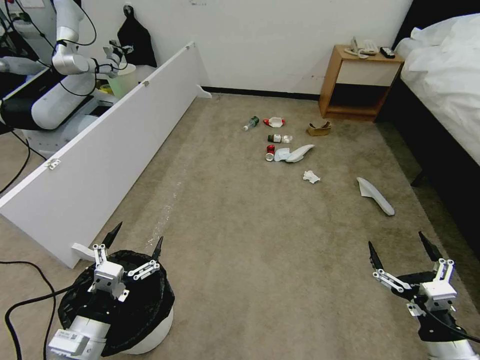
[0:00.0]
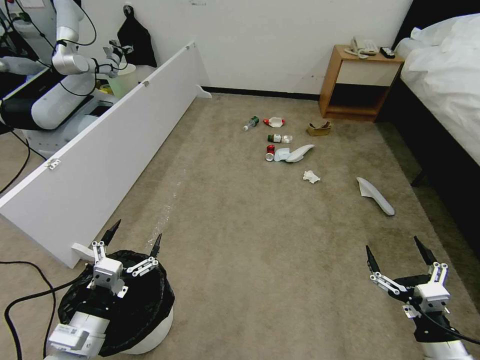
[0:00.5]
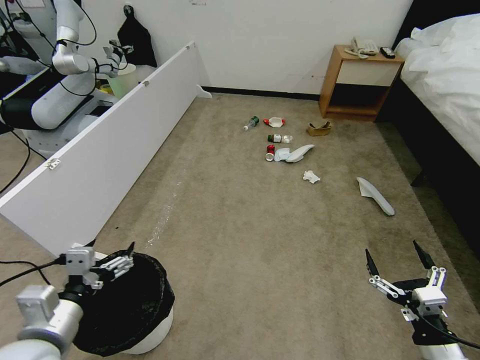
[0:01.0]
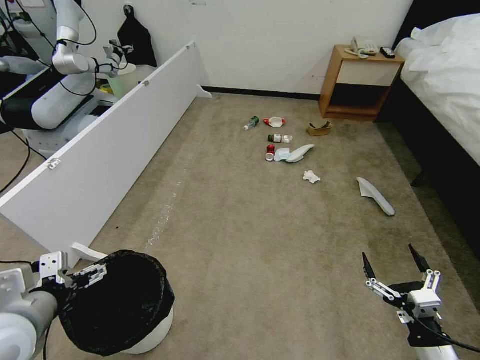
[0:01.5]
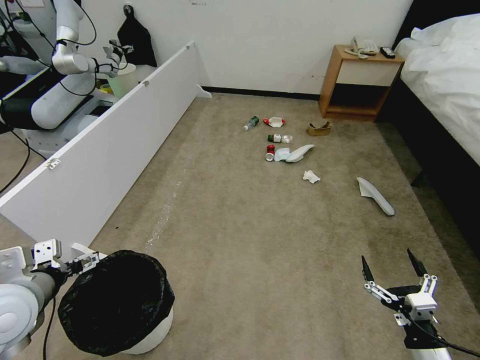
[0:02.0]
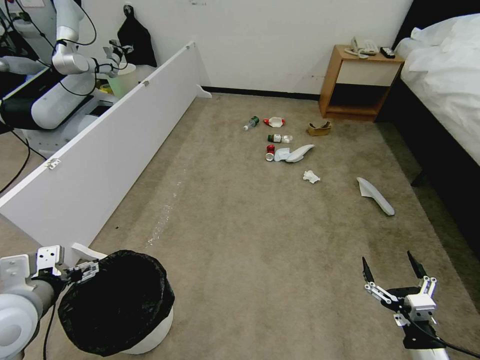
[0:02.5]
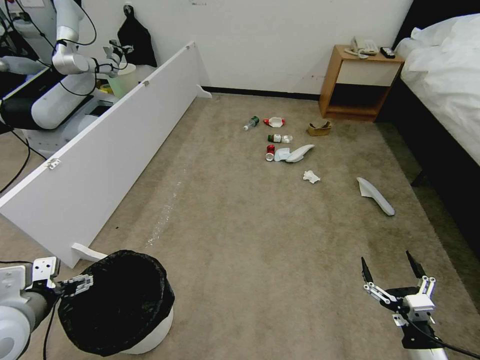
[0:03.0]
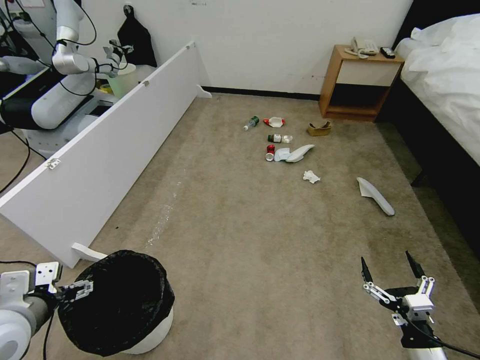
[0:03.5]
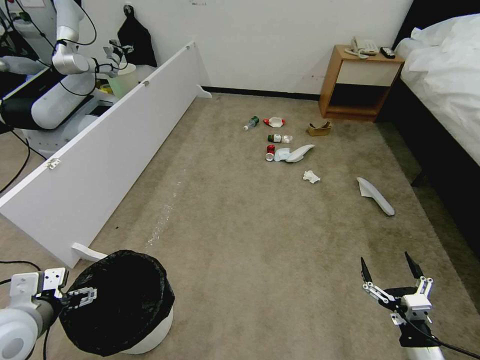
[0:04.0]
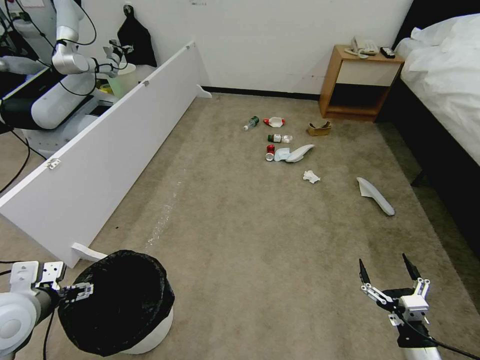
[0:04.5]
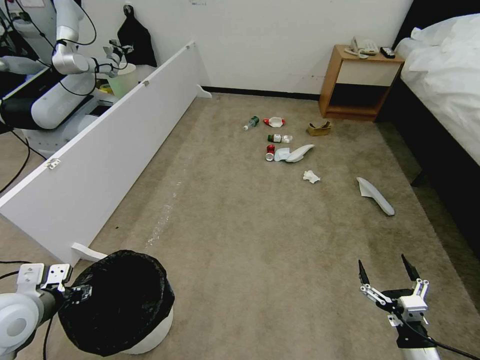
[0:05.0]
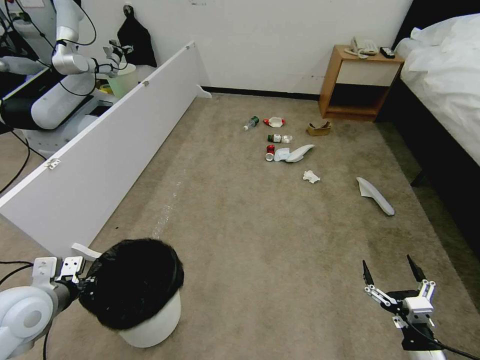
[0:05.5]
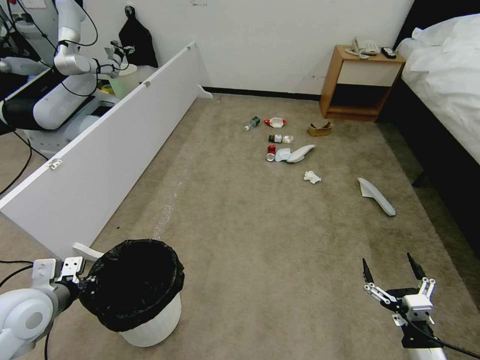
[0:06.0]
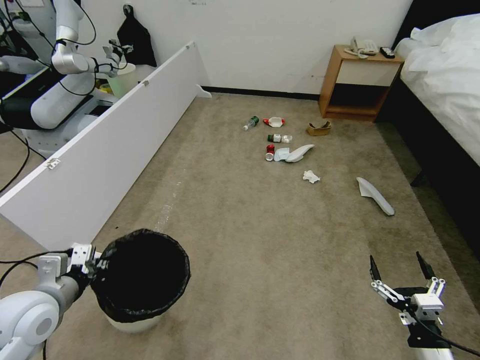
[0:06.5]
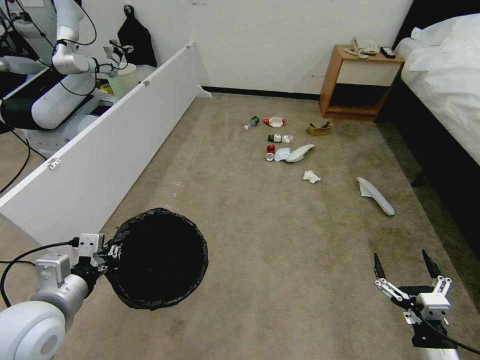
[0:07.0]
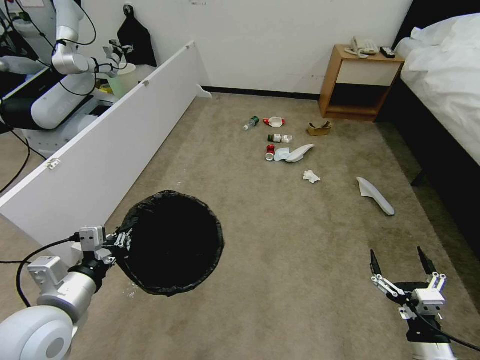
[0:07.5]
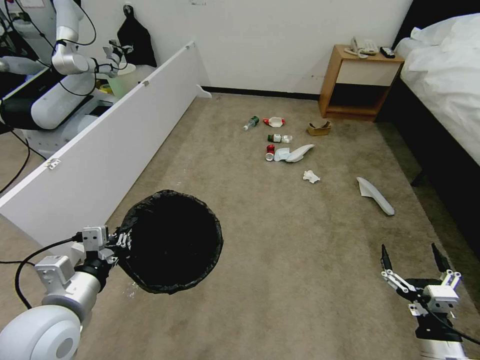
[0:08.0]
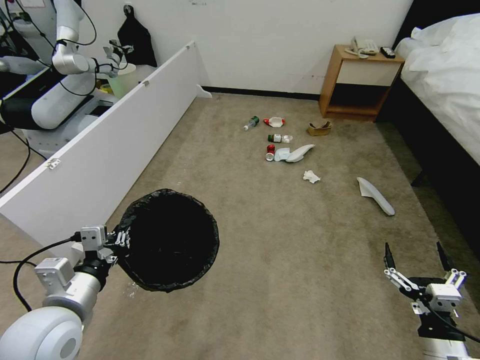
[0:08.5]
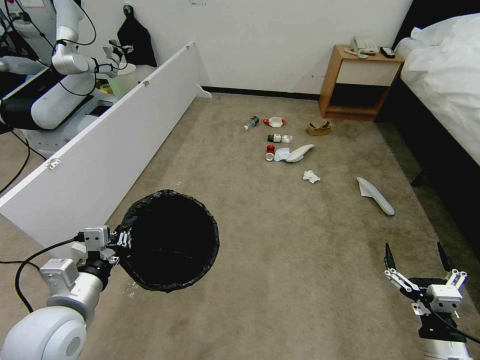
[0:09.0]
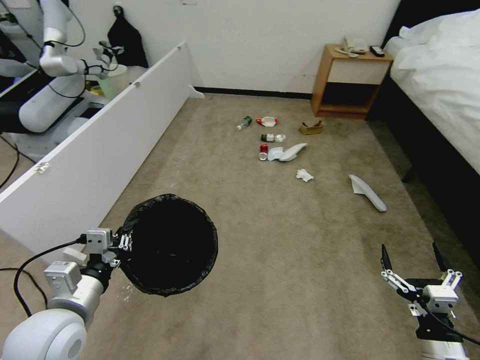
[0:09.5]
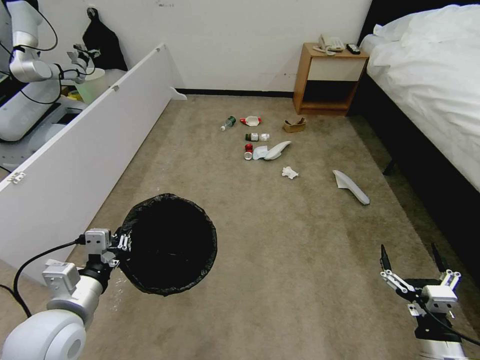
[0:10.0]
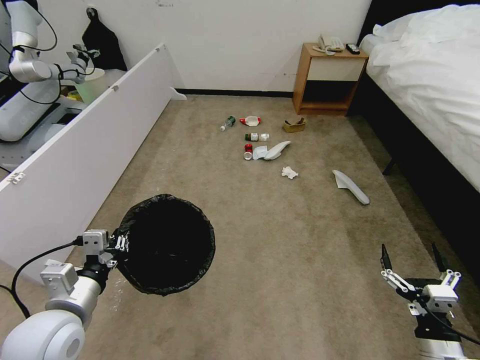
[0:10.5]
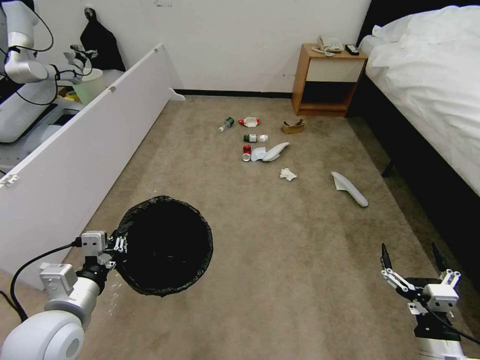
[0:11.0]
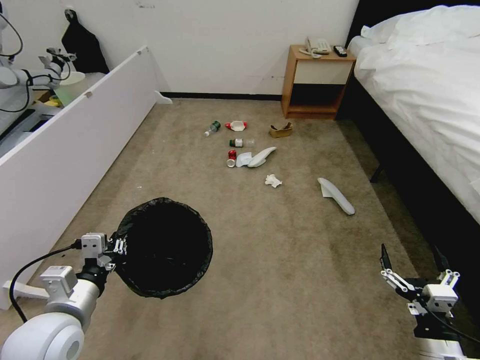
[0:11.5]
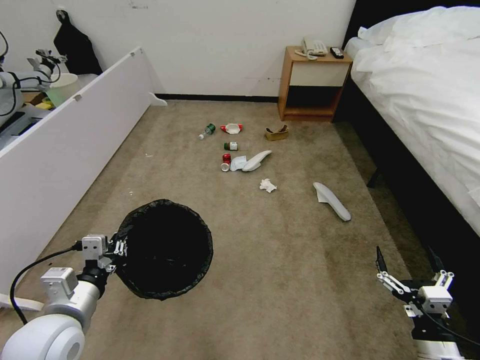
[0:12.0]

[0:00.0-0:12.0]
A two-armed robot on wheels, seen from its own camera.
Task of the whole recording: Pick up the trash bin and place the garbage on the floor into it.
0:02.0 to 0:04.0: The grippers stay close to where they were, moving slightly.
0:04.0 to 0:06.0: The left gripper changes place by approximately 5 cm, and closes its fingers.
0:06.0 to 0:08.0: The left gripper moves to the right, approximately 10 cm.

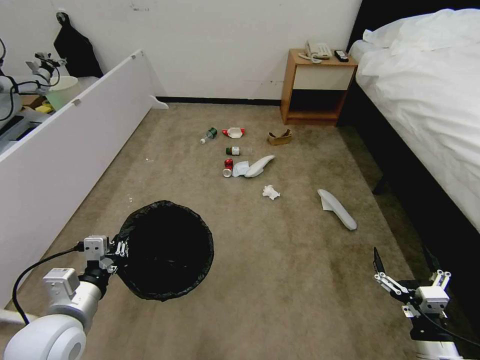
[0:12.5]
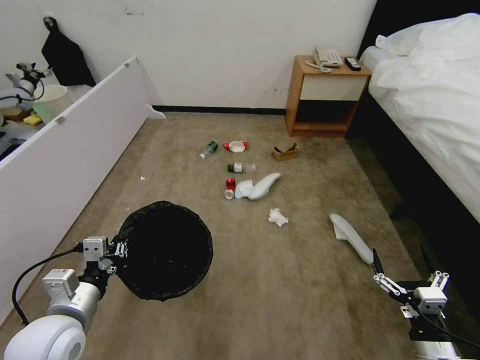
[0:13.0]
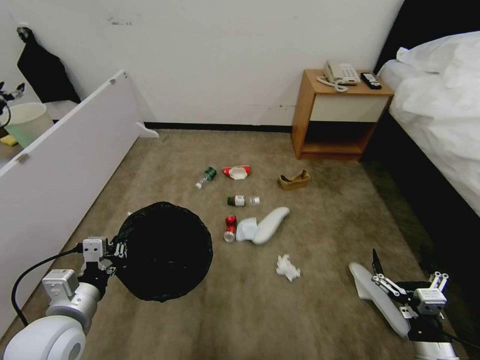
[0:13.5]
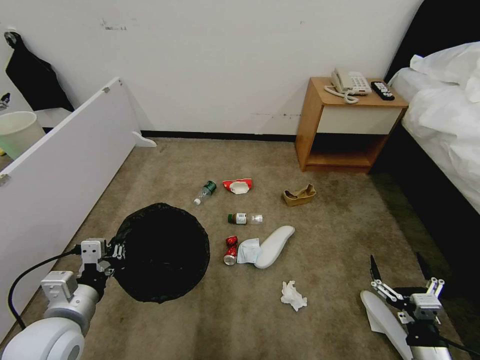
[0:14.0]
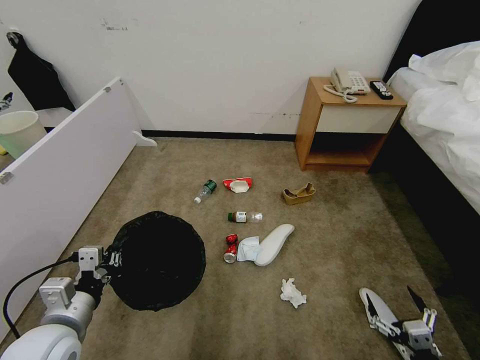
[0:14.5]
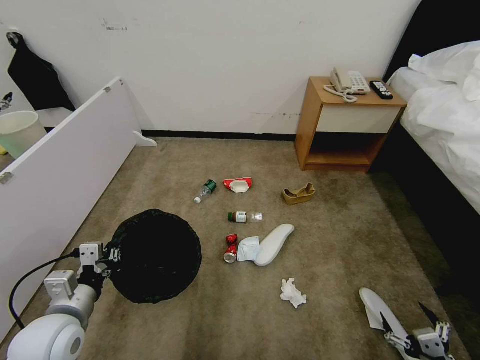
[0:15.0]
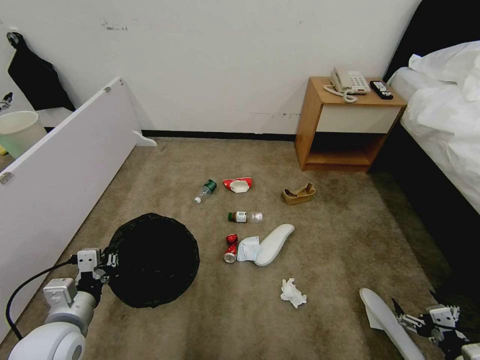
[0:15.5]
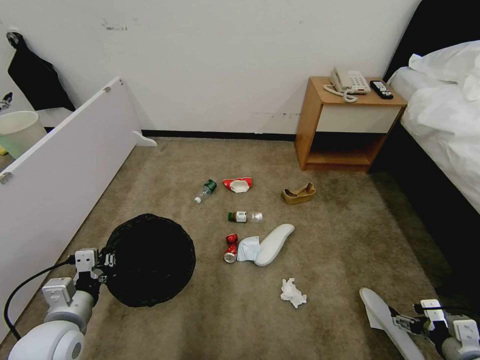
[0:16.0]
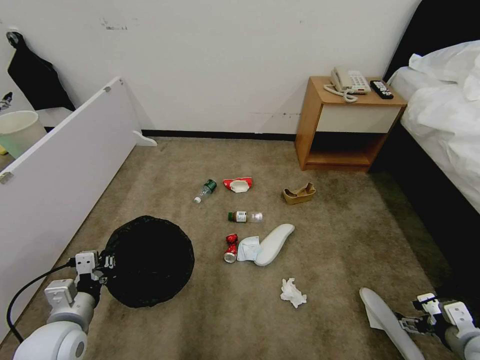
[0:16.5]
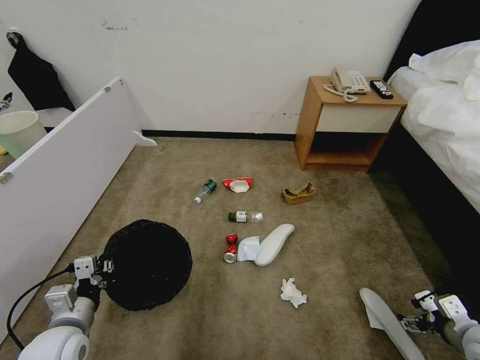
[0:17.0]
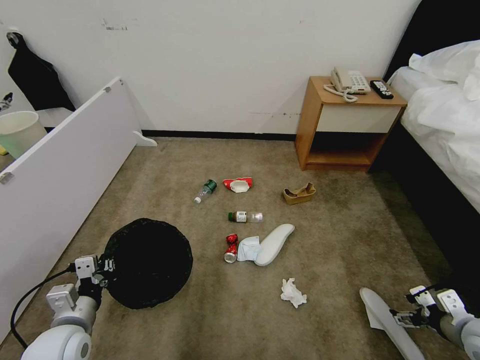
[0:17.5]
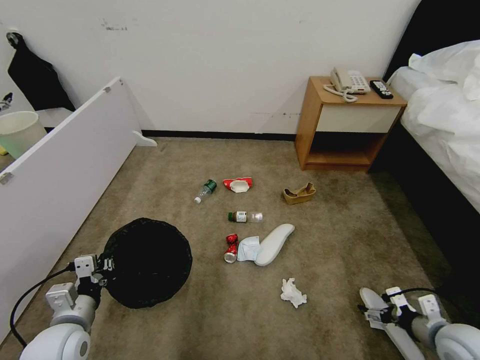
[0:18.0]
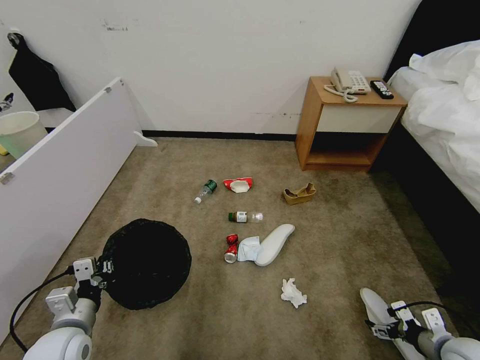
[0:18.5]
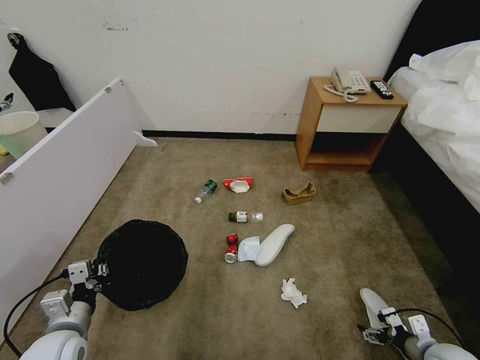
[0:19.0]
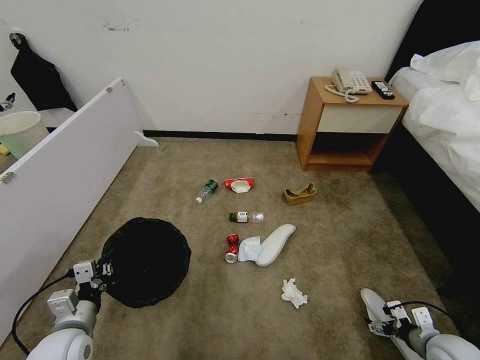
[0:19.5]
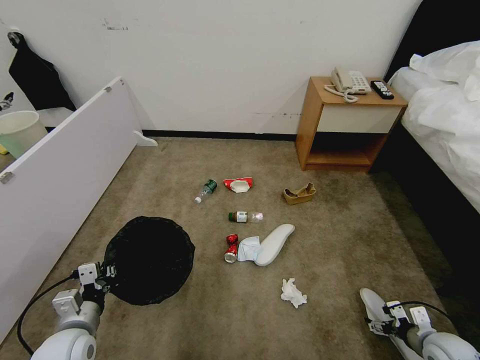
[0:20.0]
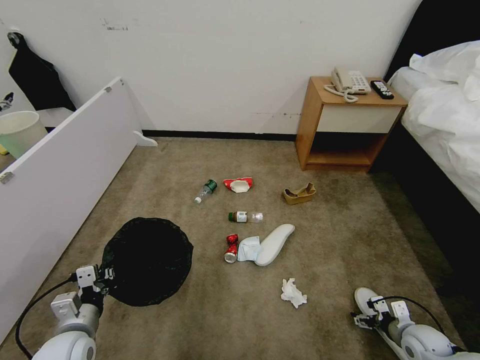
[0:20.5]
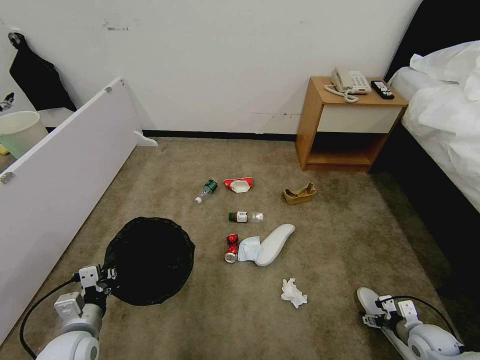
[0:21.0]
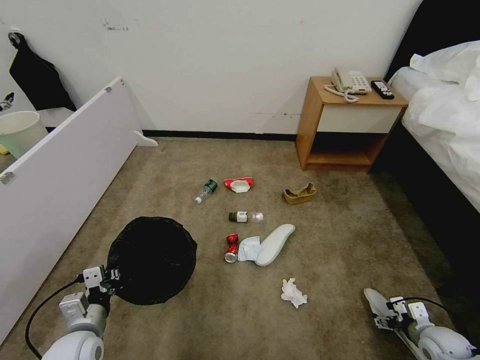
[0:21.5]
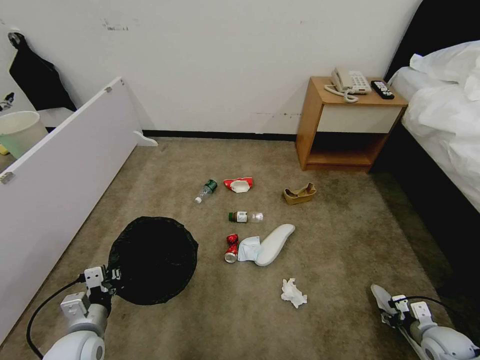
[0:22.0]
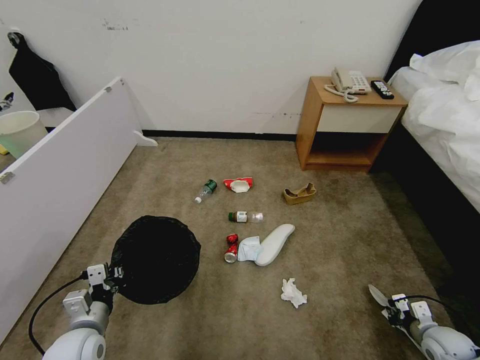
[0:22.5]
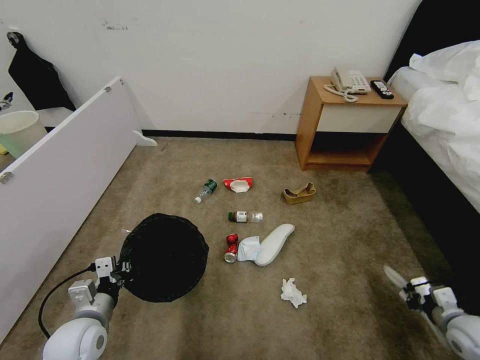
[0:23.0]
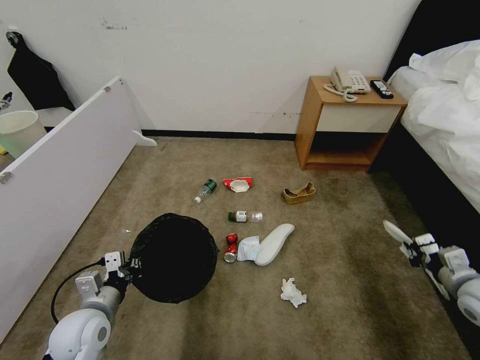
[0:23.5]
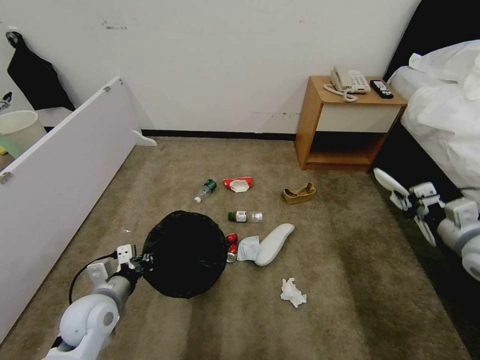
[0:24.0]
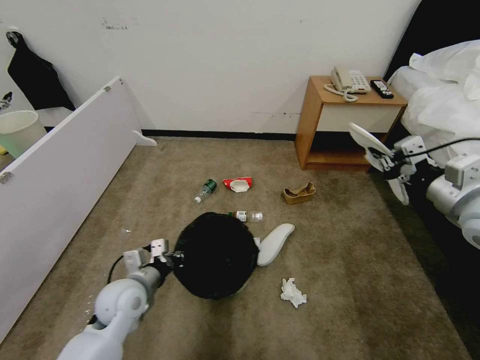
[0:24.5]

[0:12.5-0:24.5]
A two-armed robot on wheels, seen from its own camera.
Task of the whole recording: Pick up the trash bin and place the garbage on the floor into it.
0:12.5 to 0:14.5: The right gripper travels backward by about 5 cm.
0:14.5 to 0:16.5: The left gripper ends up some 5 cm from where it was, while the right gripper moves forward, to the right and upward, some 15 cm.
0:16.5 to 0:18.5: The right gripper travels downward by about 5 cm.
0:18.5 to 0:20.5: The right gripper goes about 10 cm downward.
0:20.5 to 0:22.5: The right gripper closes its fingers.
0:22.5 to 0:24.5: The left gripper is displaced forward and to the right by some 10 cm. Meanwhile the right gripper shifts about 40 cm upward.

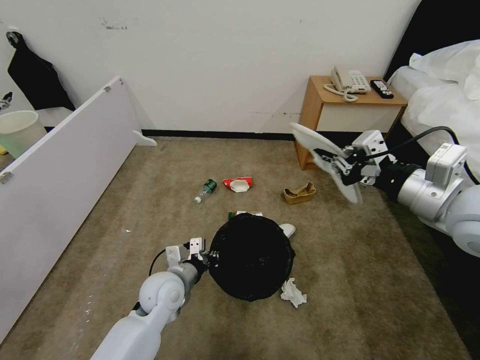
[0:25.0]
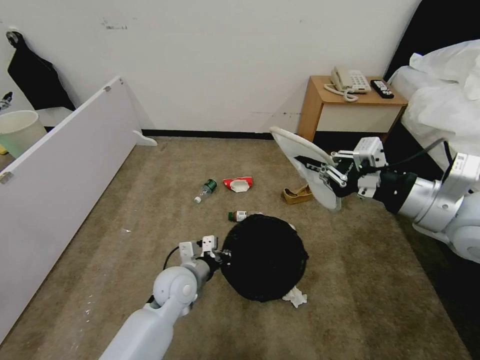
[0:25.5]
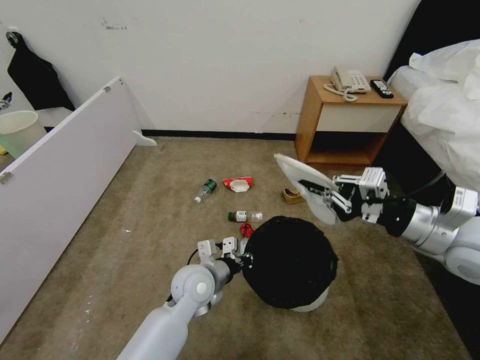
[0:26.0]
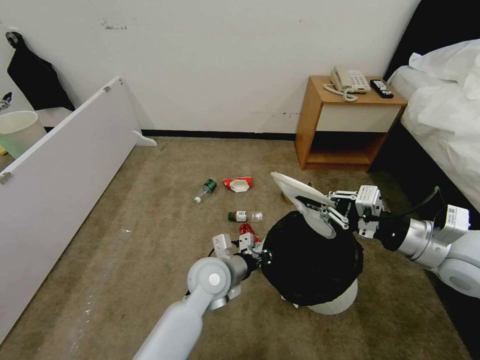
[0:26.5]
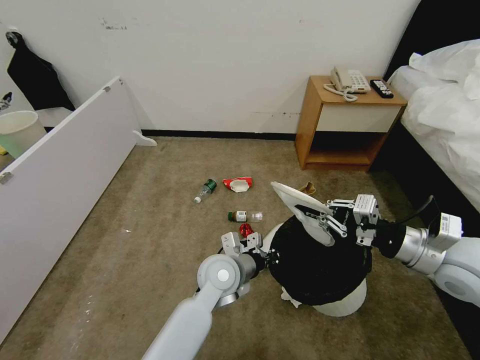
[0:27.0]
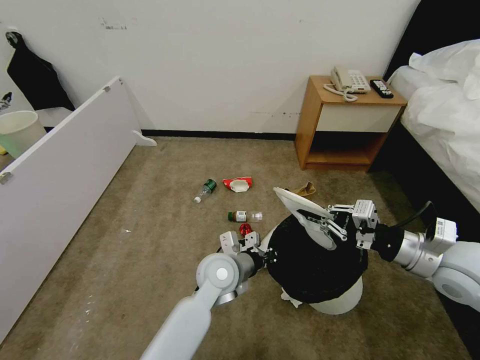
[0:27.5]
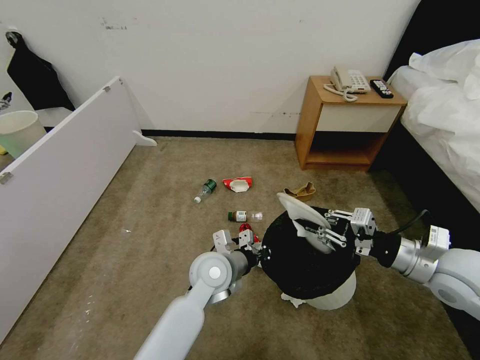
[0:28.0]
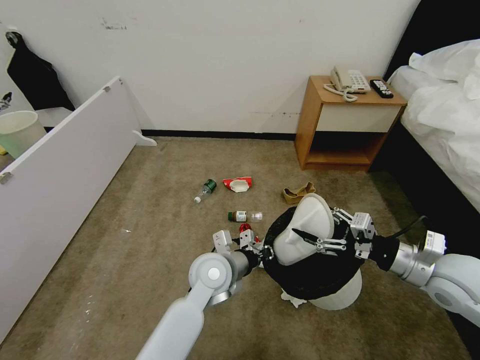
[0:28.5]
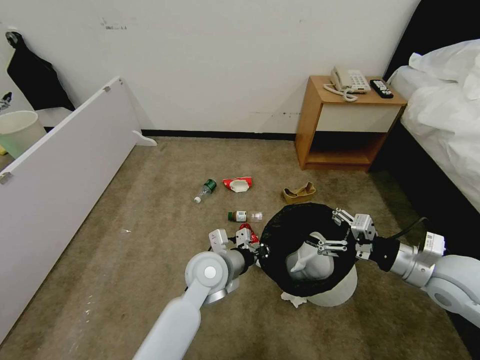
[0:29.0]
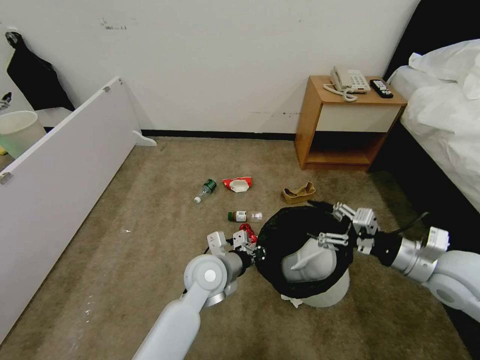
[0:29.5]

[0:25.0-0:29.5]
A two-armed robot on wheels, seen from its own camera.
Task of the whole recording: Pick up the trash bin and place the garbage on the floor into it.
0:25.0 to 0:27.0: The left gripper is displaced to the right by about 15 cm, while the right gripper goes some 10 cm downward.
0:27.0 to 0:29.5: The right gripper opens up.
